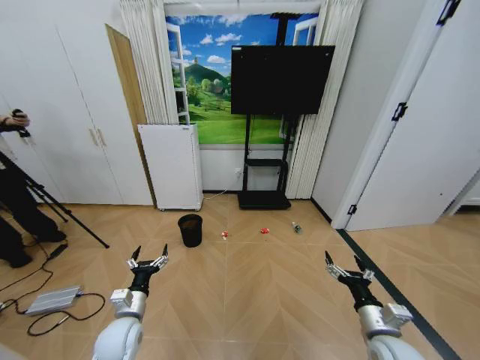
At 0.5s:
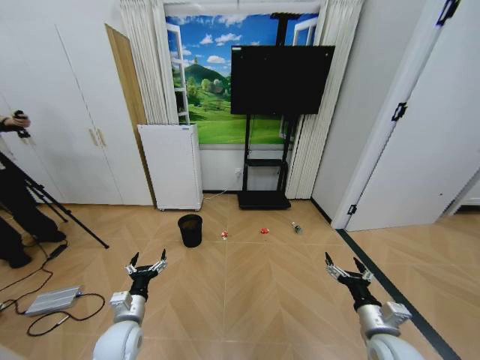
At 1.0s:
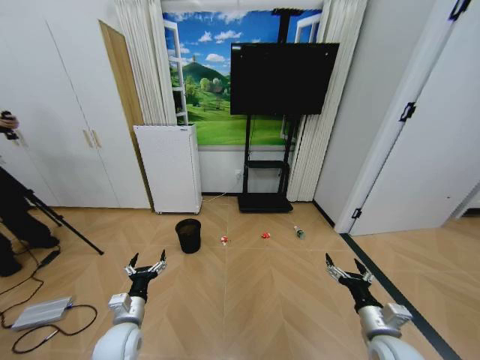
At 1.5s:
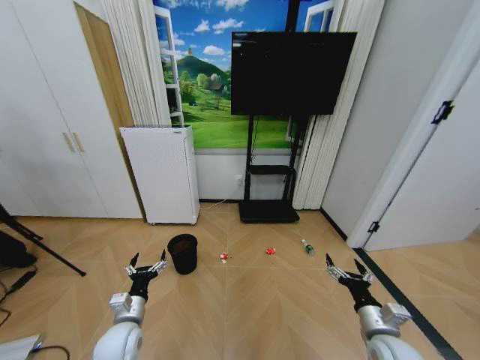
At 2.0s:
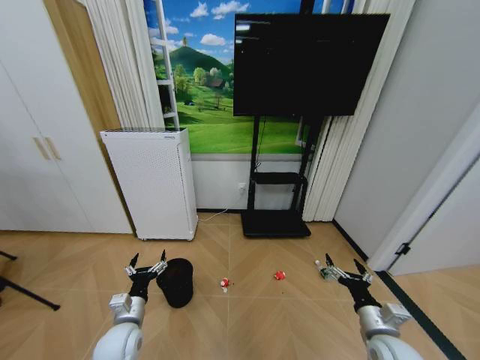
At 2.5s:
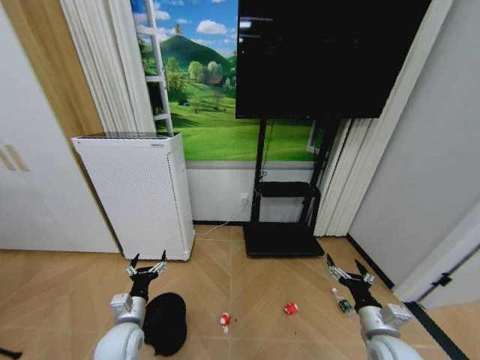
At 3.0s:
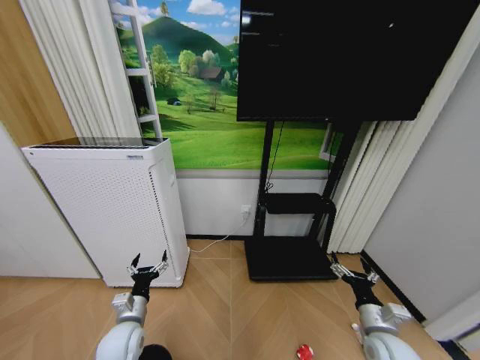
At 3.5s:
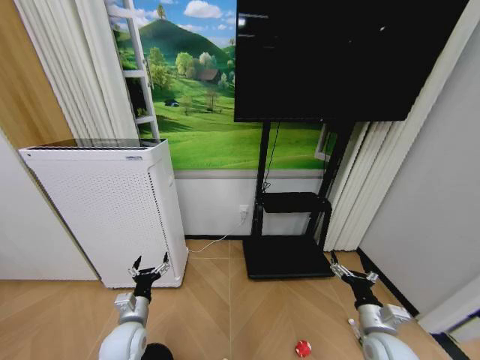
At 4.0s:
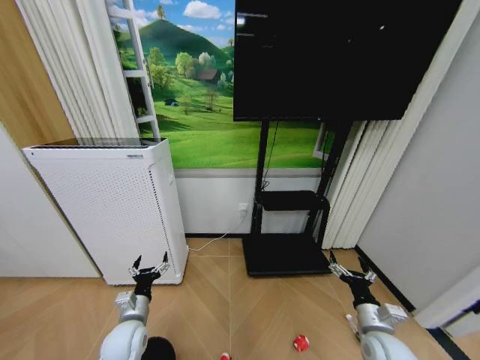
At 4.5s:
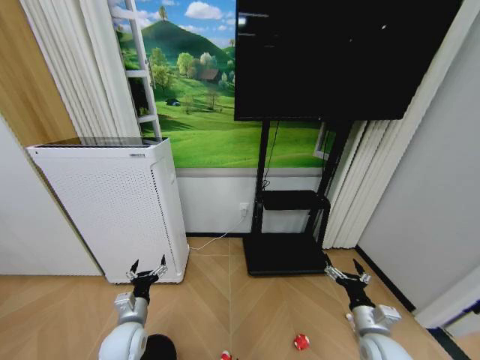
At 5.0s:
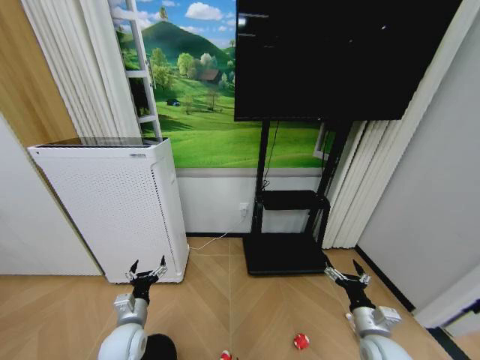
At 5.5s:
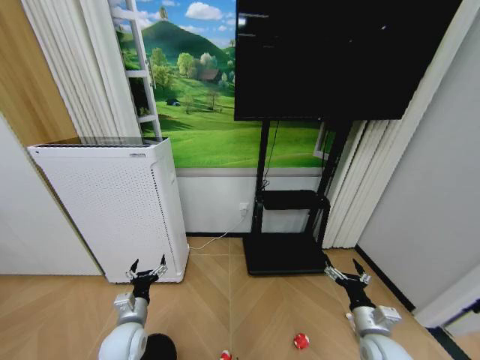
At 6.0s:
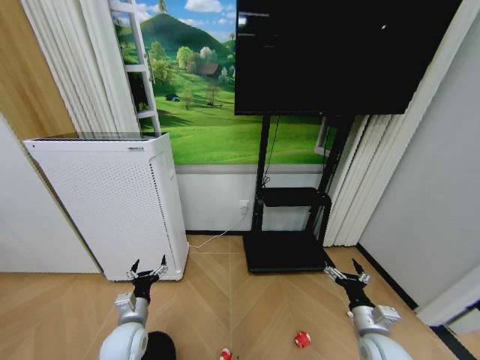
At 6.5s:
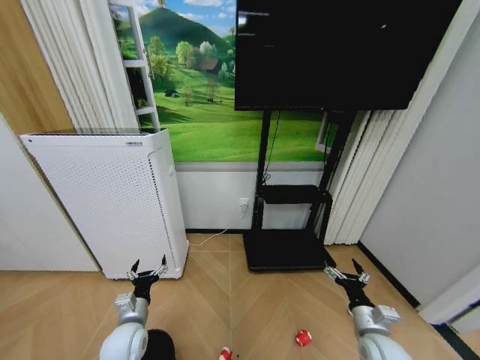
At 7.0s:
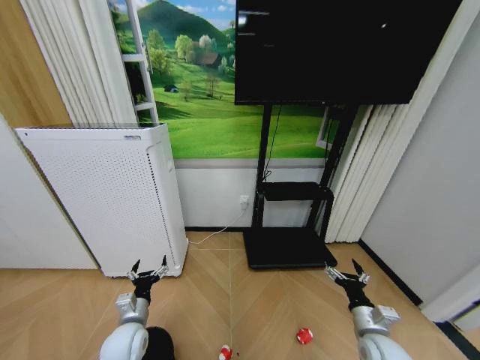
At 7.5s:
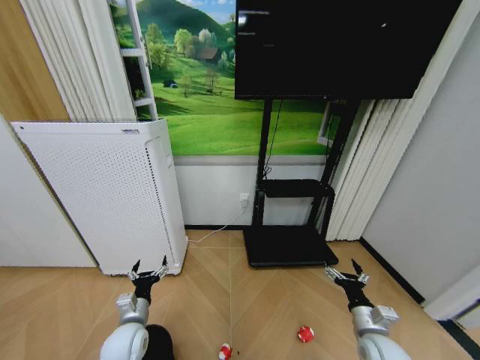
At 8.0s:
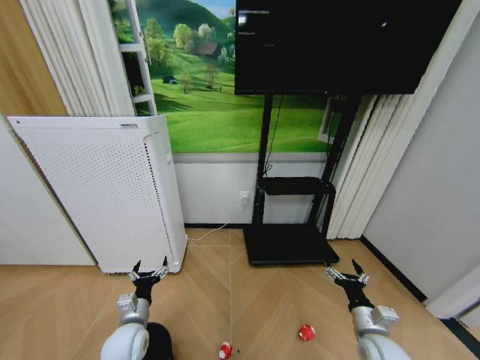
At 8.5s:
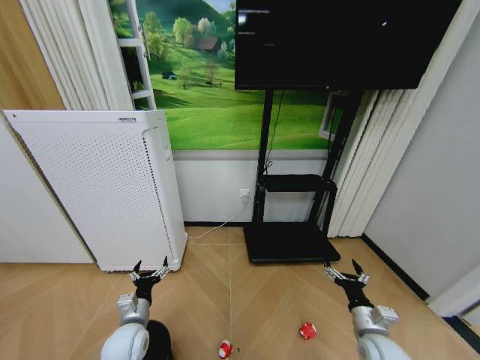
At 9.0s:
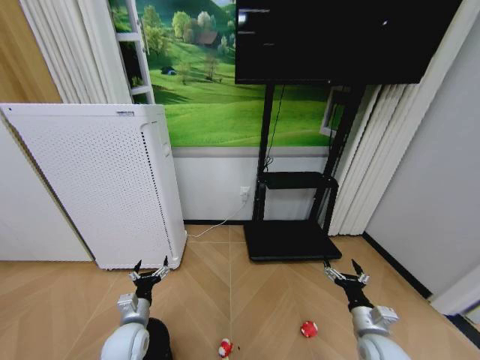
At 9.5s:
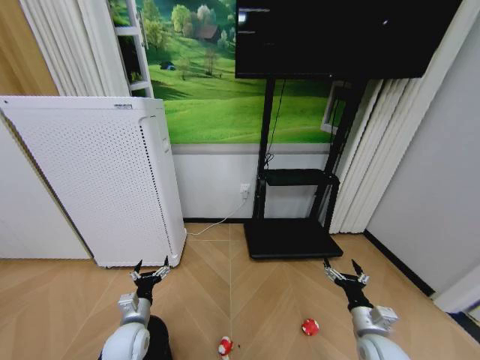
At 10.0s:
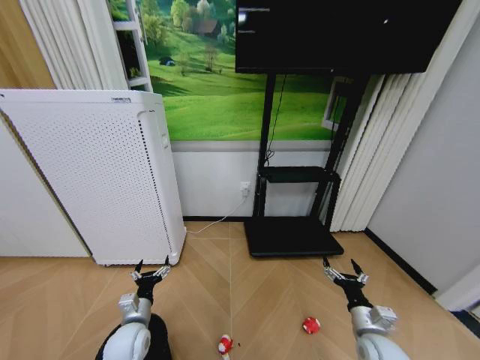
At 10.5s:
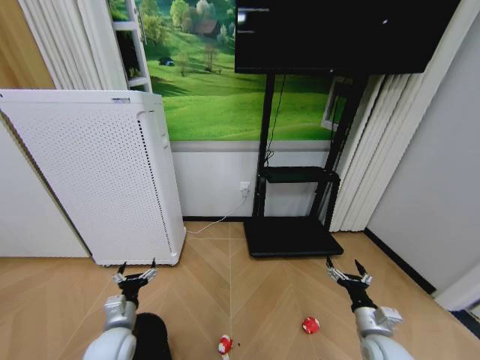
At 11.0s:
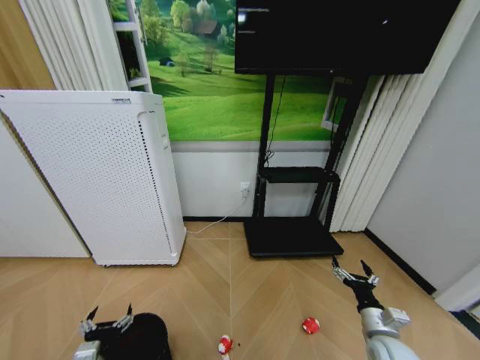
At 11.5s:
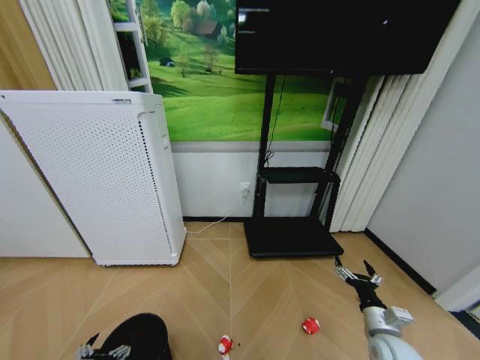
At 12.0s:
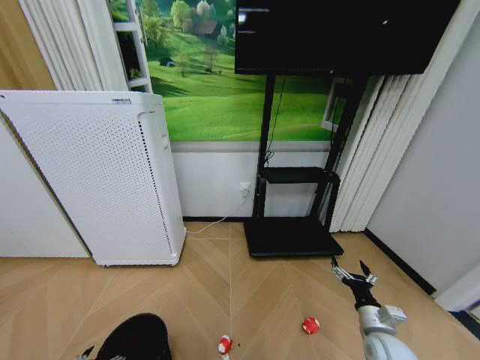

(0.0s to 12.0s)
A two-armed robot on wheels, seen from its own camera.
Task of the whole recording: Pick up the trash bin and place the garbage on the floor into it.
4.0s - 8.0s: Both grippers stay about where they are.
8.0s - 10.0s: Neither gripper changes place.
10.0s - 12.0s: The left gripper travels backward and to the left by some 15 cm.

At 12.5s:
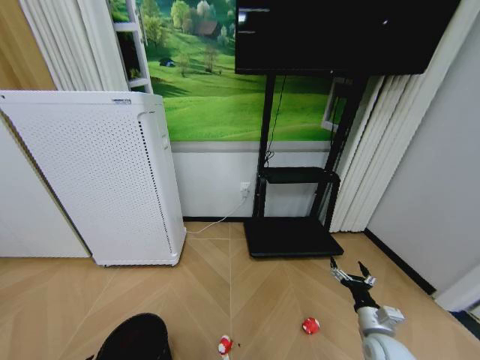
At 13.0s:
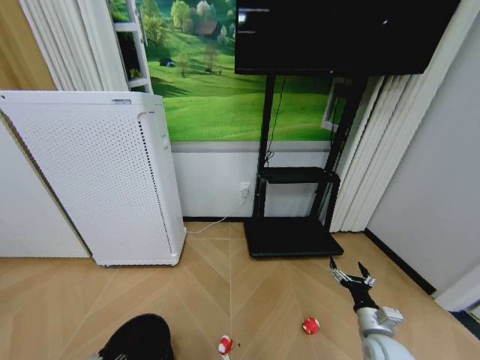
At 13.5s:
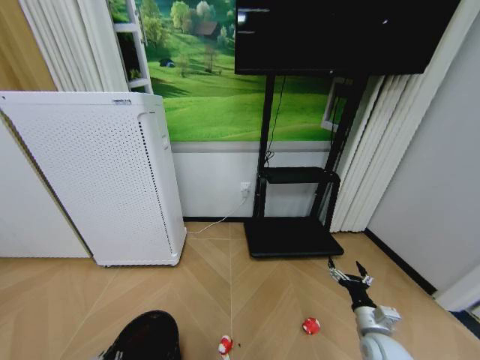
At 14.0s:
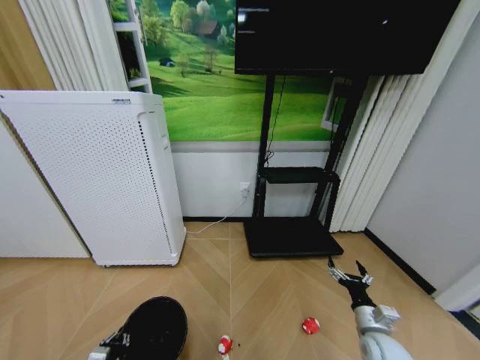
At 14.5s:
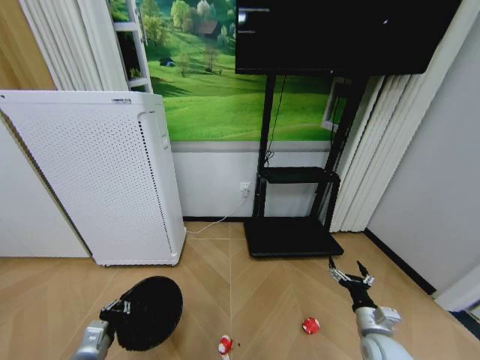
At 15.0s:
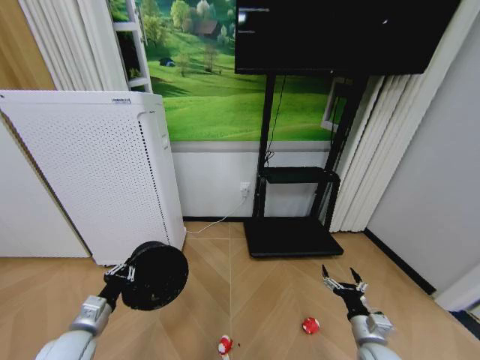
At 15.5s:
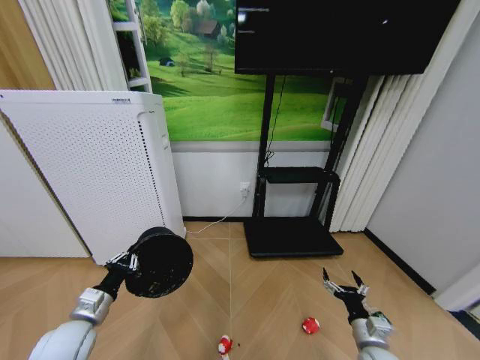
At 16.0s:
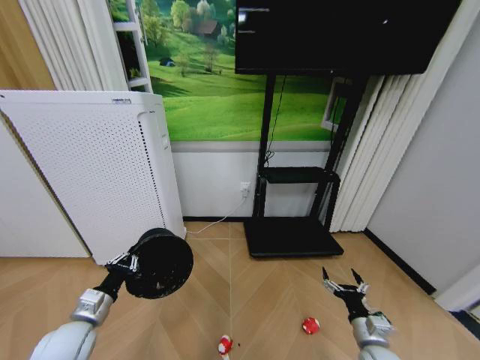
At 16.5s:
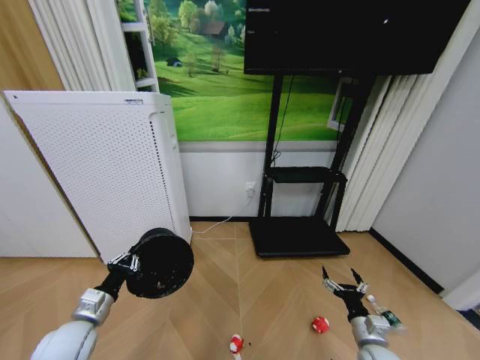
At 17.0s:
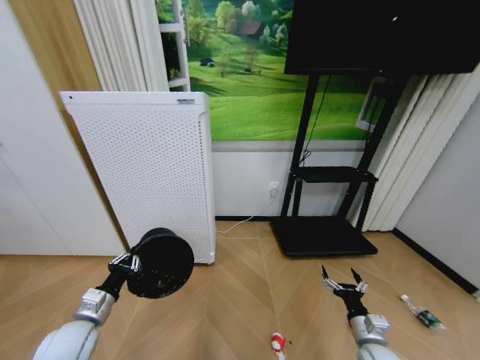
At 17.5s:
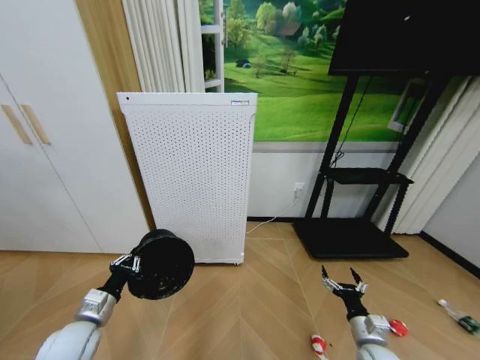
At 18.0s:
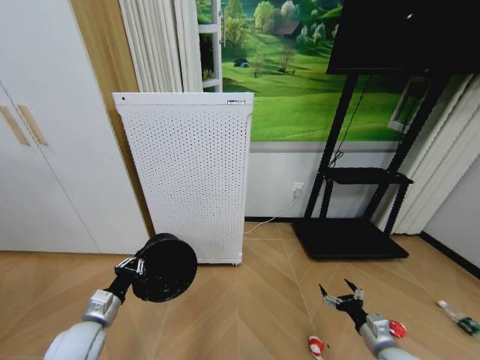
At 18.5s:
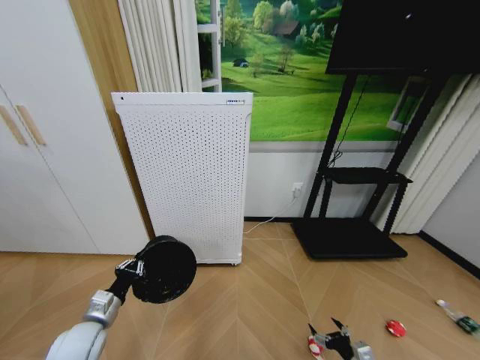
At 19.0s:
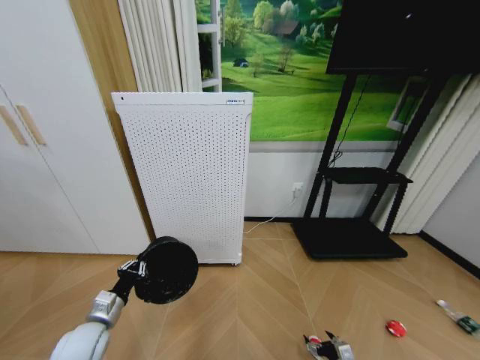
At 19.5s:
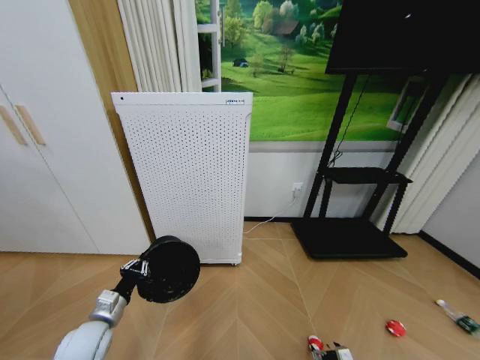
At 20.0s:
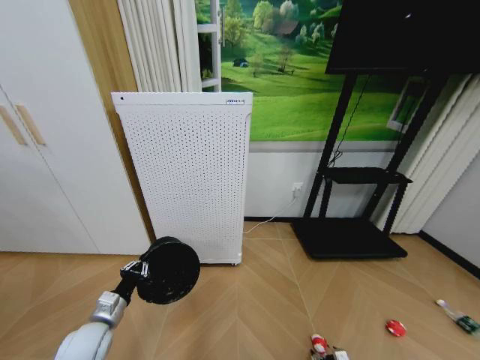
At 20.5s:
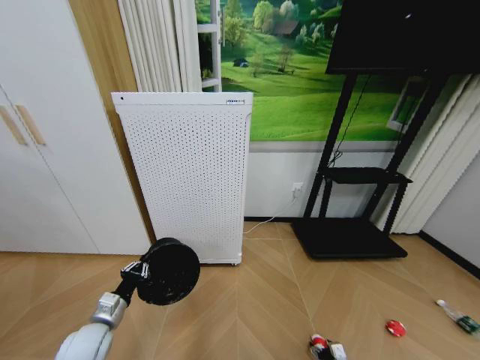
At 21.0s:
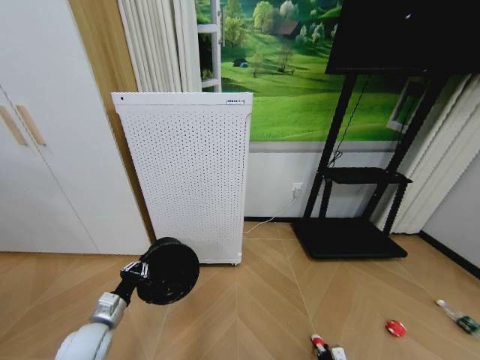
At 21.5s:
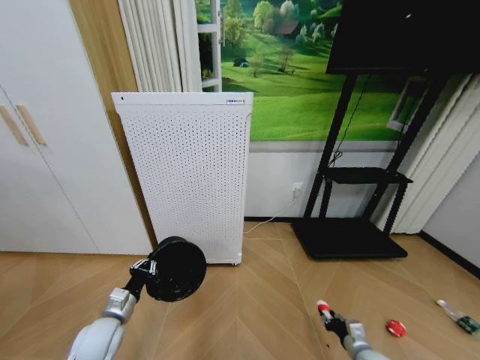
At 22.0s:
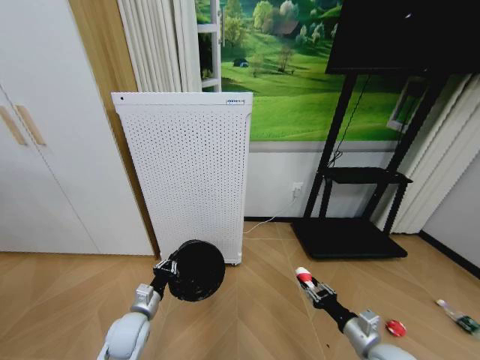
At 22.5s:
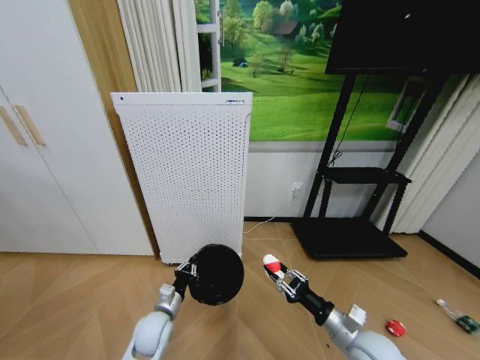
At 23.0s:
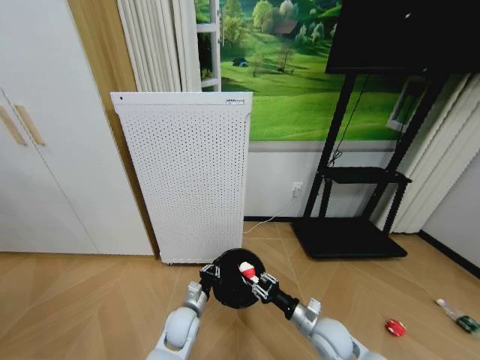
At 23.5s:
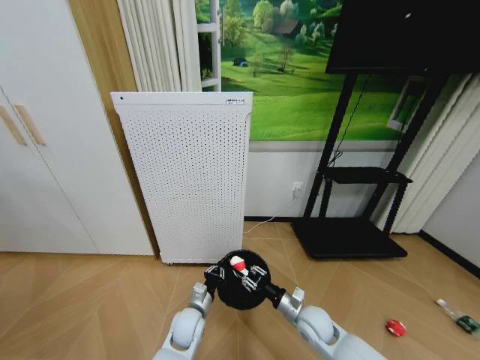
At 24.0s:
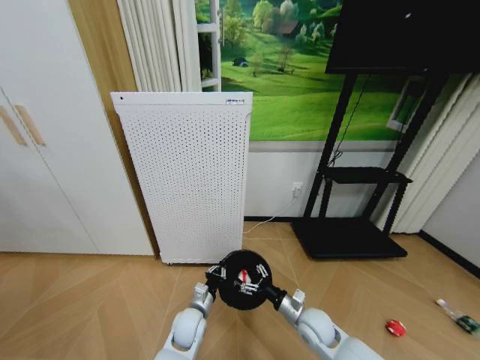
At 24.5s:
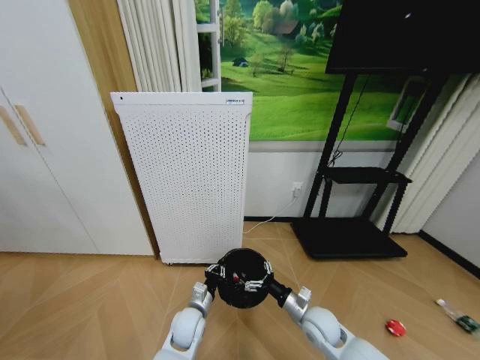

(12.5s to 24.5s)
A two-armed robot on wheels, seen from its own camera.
Task of the whole recording: Pick up the trash bin and place the garbage on the floor into it.
12.5s - 14.5s: The left gripper moves forward, approximately 5 cm, and closes.
14.5s - 16.5s: The left gripper is displaced upward and forward by roughly 10 cm.
16.5s - 18.5s: The right gripper is displaced downward and backward by some 10 cm.
18.5s - 20.5s: The right gripper shifts approximately 15 cm downward.
20.5s - 22.5s: The left gripper travels to the right by roughly 10 cm, while the right gripper is displaced upward by approximately 30 cm, and closes.
22.5s - 24.5s: The right gripper heads forward, downward and to the left, covering roughly 15 cm, and opens; the left gripper heads to the right, covering some 10 cm.

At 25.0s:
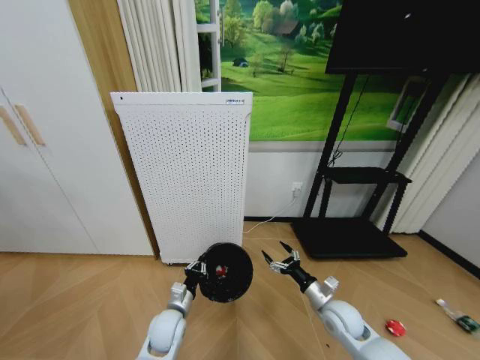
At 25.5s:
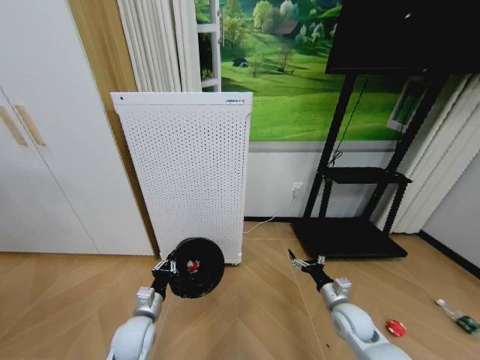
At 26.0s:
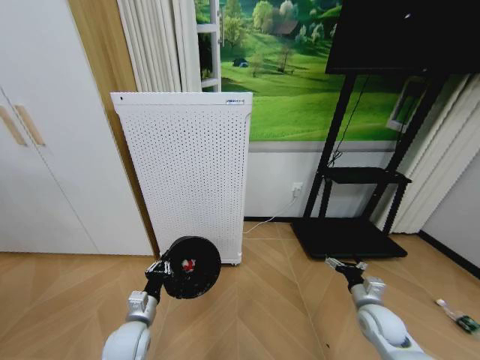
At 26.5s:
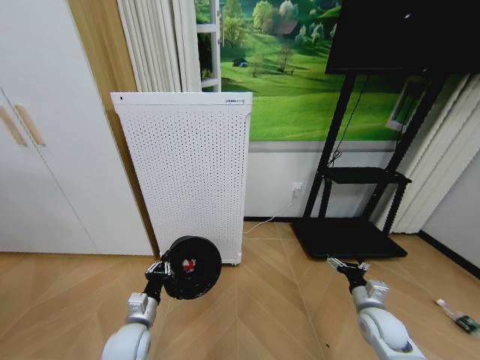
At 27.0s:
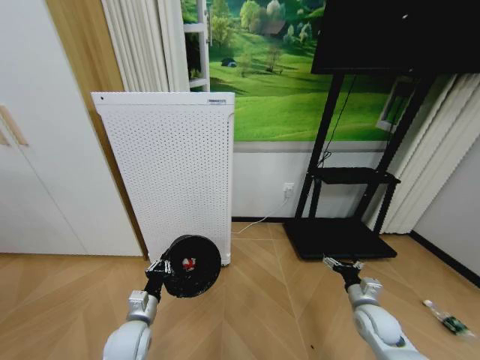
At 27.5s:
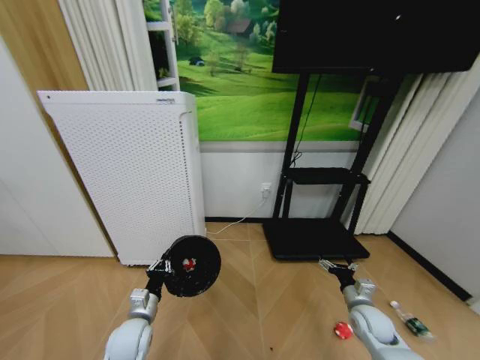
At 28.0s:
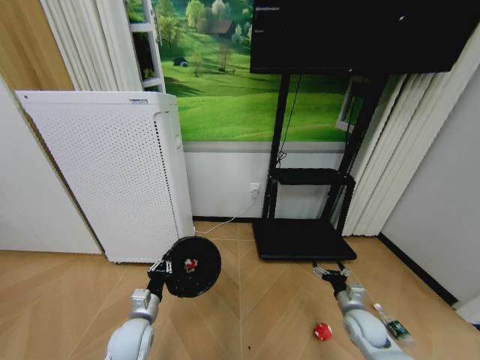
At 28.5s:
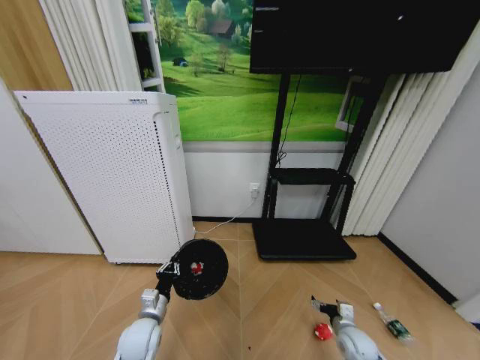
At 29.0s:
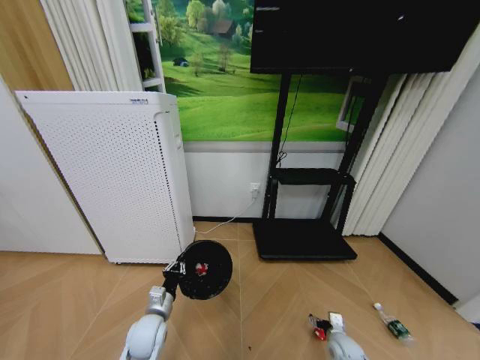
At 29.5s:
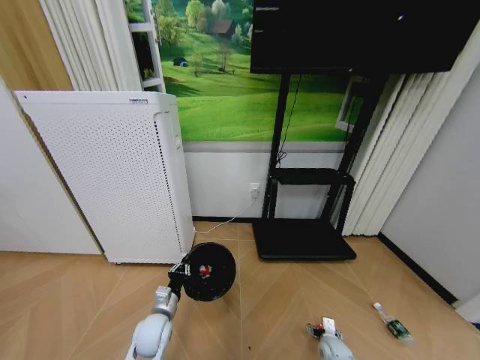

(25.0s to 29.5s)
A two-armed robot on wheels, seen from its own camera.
Task of the whole recording: Pick up the trash bin and place the garbage on the floor into it.
25.0s - 27.0s: The left gripper travels to the left by roughly 5 cm, while the right gripper goes approximately 10 cm to the right.
27.0s - 29.5s: The right gripper travels downward by about 20 cm, while the left gripper moves some 5 cm.
